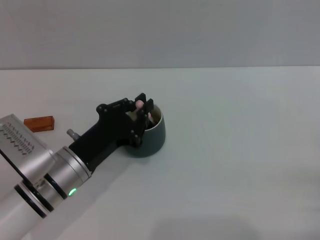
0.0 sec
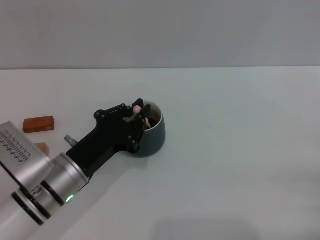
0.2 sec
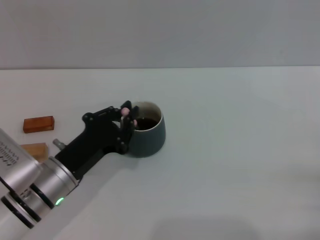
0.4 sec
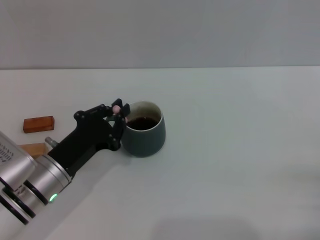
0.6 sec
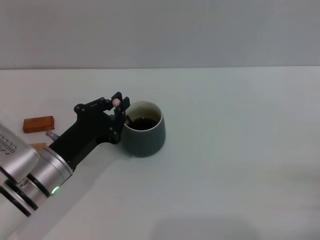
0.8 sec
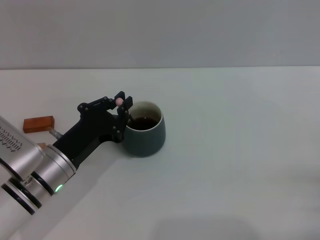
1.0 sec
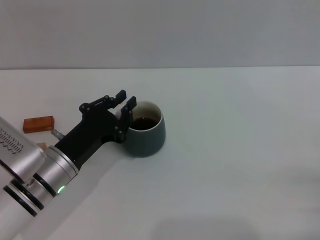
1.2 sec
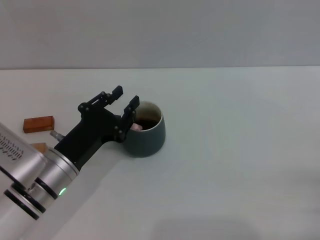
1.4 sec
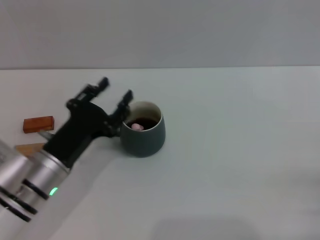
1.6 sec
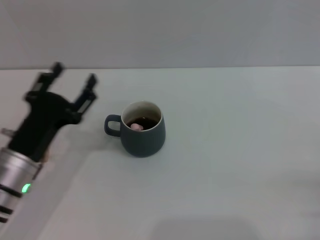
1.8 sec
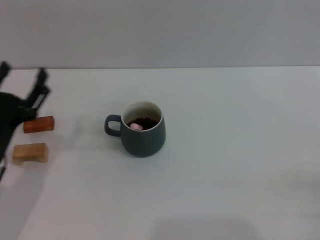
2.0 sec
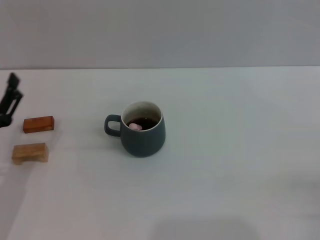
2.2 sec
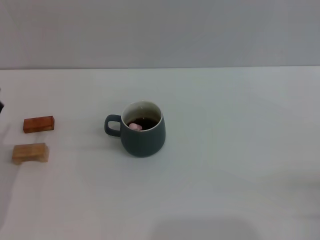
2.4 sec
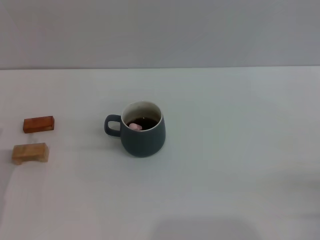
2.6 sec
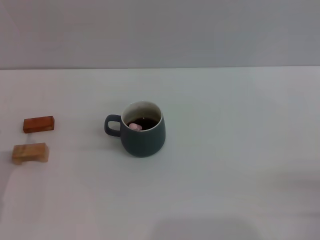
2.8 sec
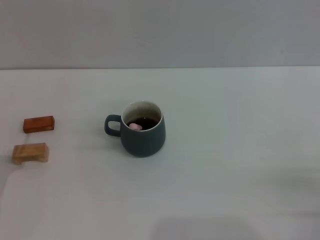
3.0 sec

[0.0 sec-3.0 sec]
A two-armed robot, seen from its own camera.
Task of the whole recording: Move the grey cup to the center, lift the pink spoon, stir it three times in the cup, and put the spoon into the cup.
0.0 sec to 1.6 sec: The grippers make only small movements.
1.6 sec to 3.0 sec: The left gripper travels to the left and backward by approximately 15 cm, and opens its fingers.

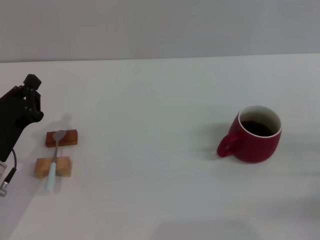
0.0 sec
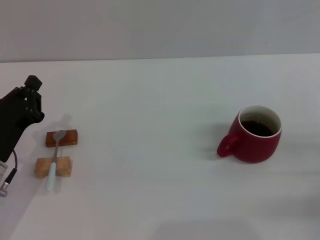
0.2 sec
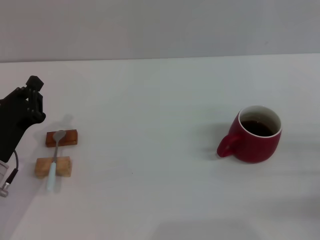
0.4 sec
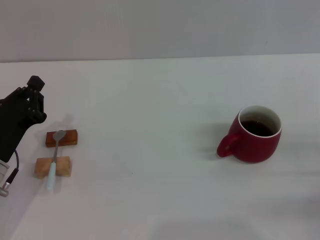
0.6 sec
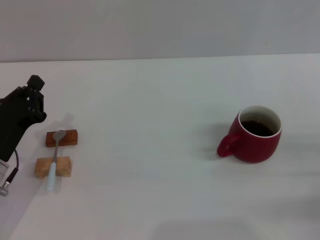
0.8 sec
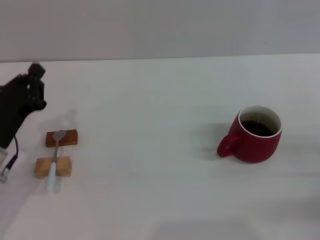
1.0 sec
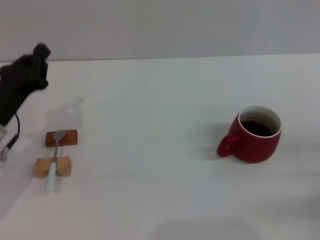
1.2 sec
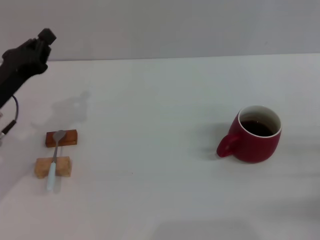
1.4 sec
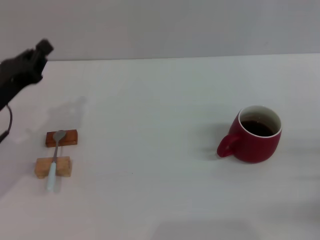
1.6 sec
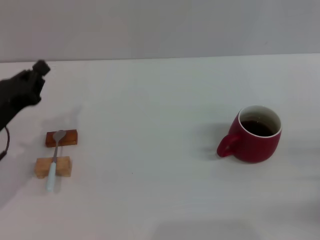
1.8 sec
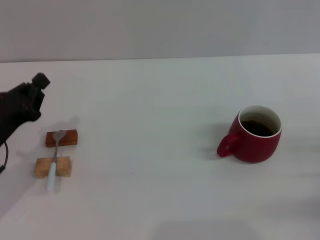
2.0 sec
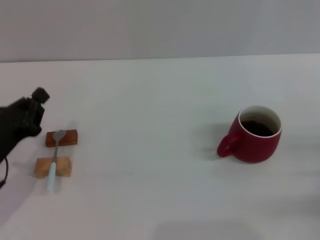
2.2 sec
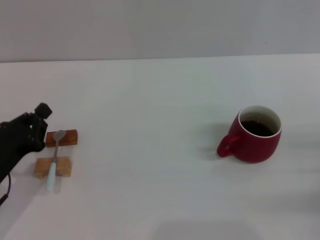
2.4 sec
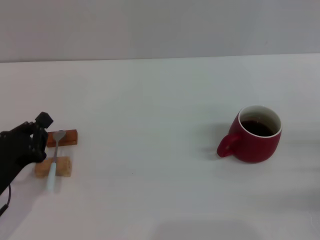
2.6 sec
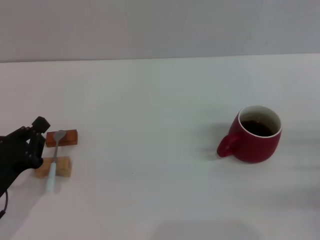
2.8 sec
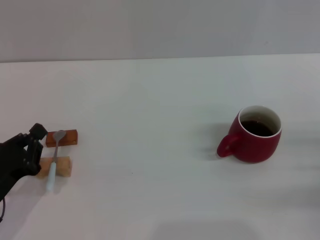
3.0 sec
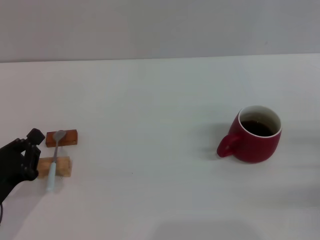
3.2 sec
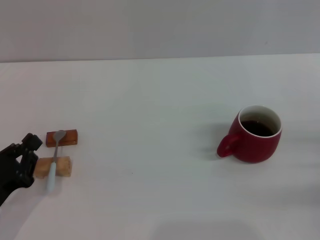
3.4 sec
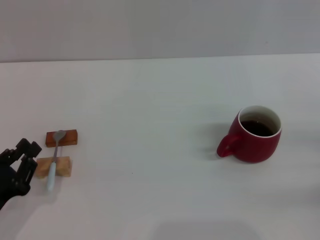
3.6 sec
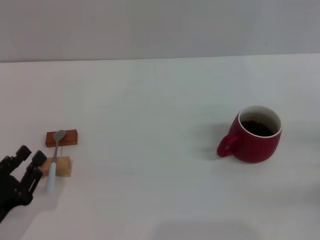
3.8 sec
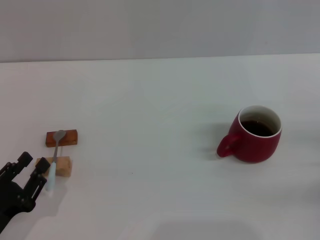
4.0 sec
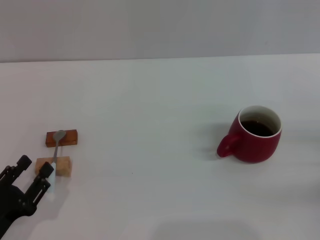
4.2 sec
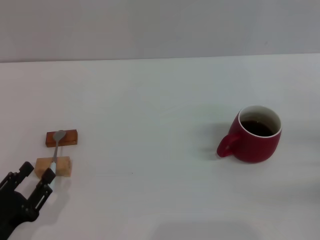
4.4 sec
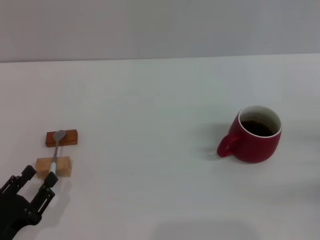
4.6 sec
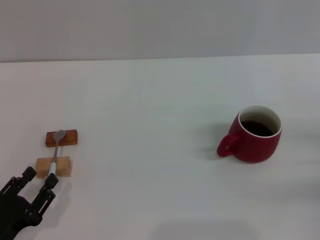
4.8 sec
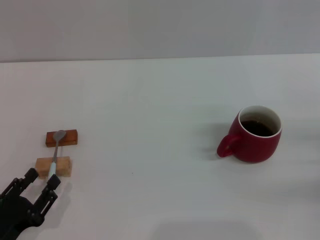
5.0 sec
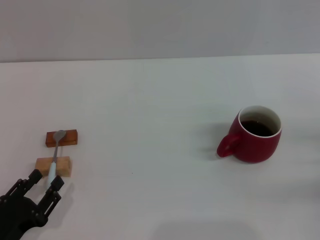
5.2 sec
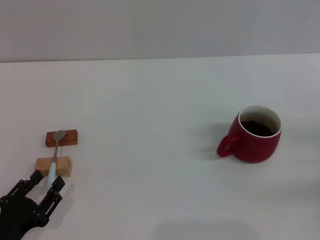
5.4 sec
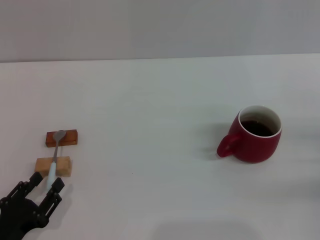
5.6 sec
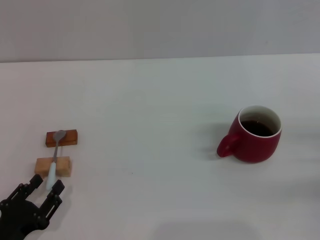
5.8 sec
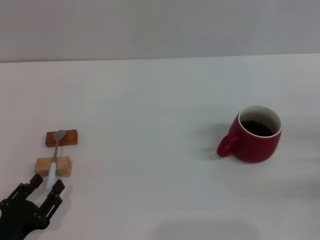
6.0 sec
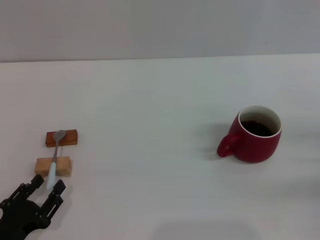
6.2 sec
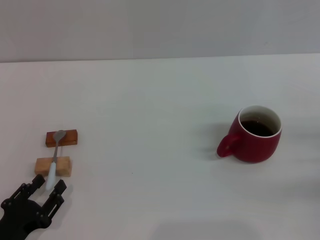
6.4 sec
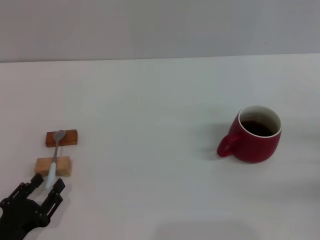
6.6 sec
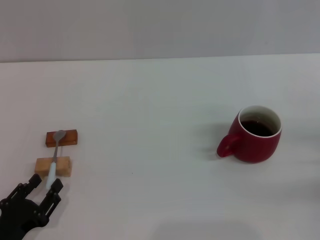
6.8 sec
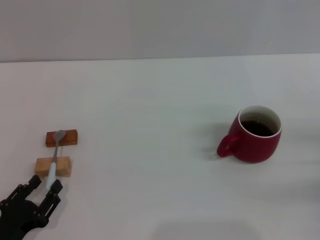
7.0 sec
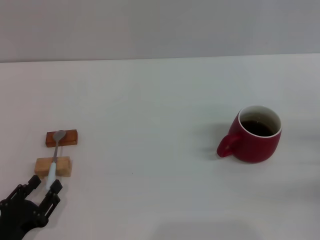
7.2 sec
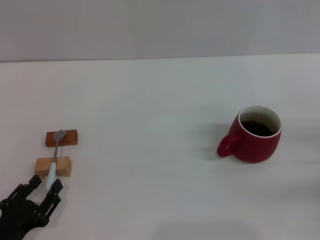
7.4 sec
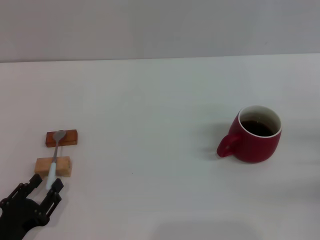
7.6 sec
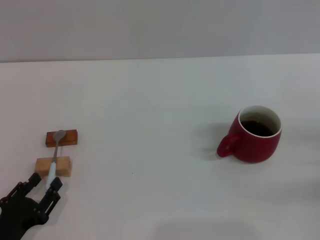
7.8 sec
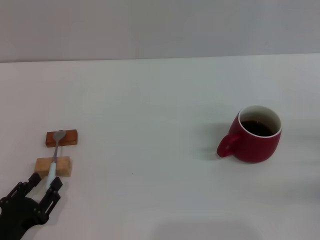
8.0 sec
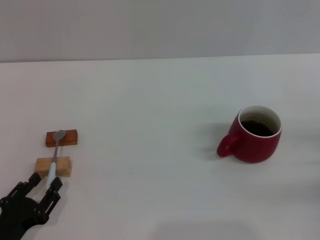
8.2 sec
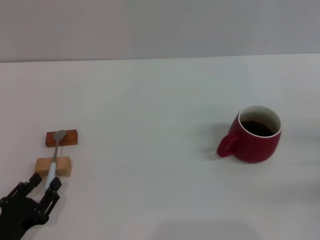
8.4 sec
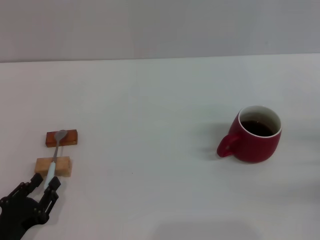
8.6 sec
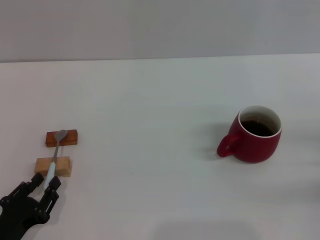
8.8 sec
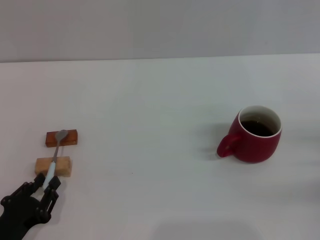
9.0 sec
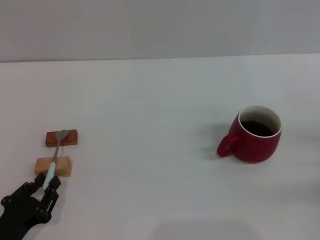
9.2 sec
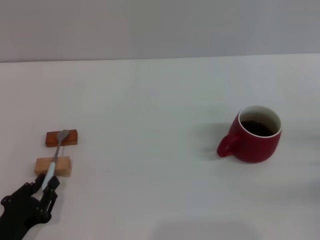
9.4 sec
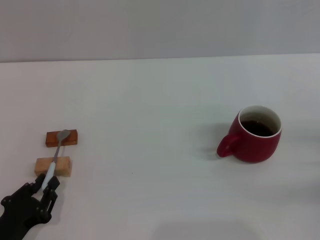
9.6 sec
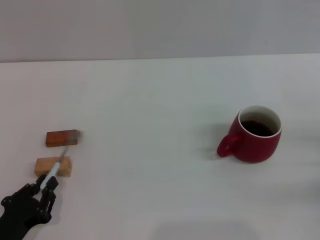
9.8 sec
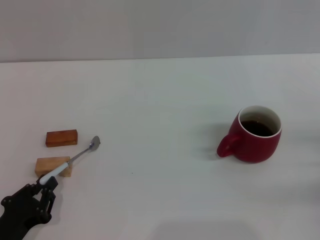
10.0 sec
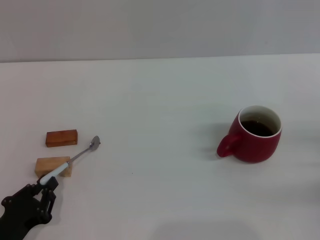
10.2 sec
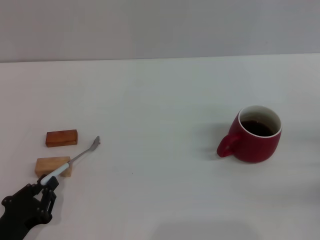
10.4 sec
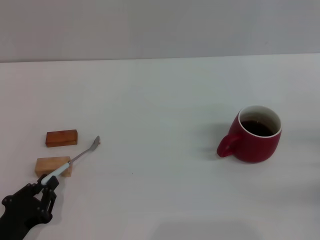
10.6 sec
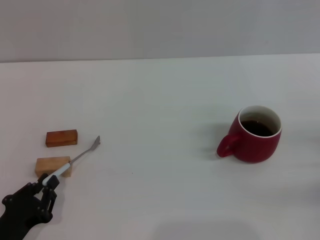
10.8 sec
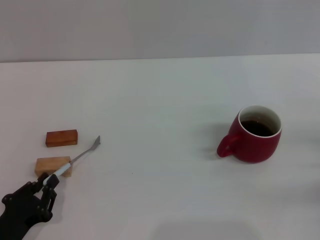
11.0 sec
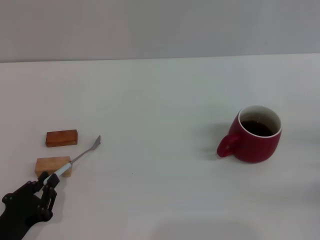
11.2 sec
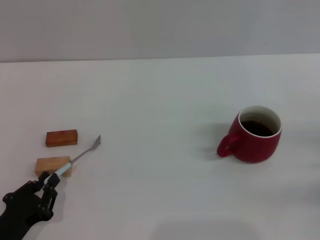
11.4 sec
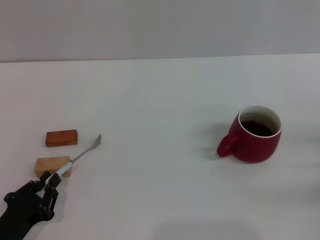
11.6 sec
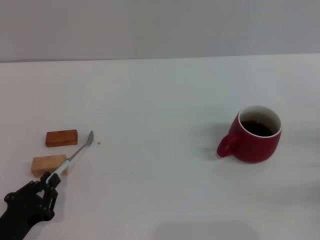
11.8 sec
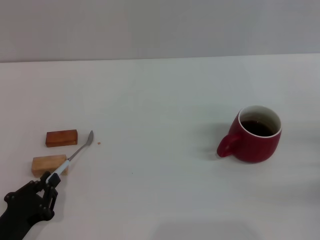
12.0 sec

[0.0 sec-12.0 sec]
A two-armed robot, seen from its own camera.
Task of the whole recording: Move the red cup to the center, lift the blue spoon, stir it three times in the cup, and put the spoon into the cup.
0.0 sec to 1.6 sec: The left gripper heads upward and forward, covering roughly 5 cm.
1.6 sec to 3.0 sec: The left gripper shifts some 15 cm backward and downward.
3.0 sec to 4.4 sec: The left gripper shifts some 5 cm backward, and opens its fingers.
4.4 sec to 6.0 sec: The grippers stay close to where they were, moving slightly.
6.0 sec to 9.0 sec: Both grippers stay about where they are.
9.0 sec to 10.4 sec: The left gripper closes its fingers.
10.4 sec to 12.0 sec: Both grippers stay put.

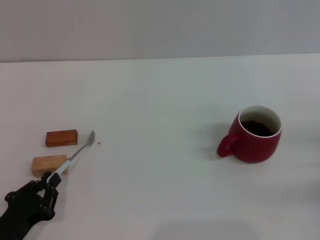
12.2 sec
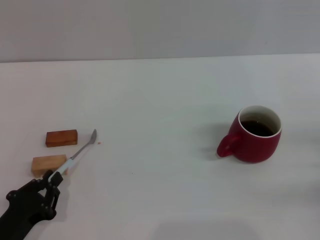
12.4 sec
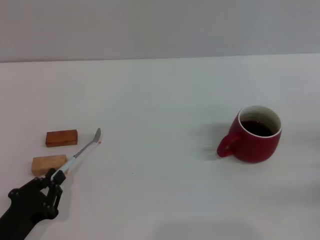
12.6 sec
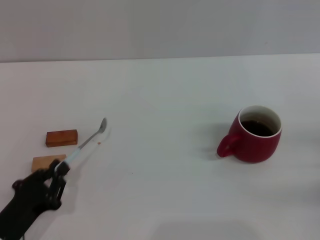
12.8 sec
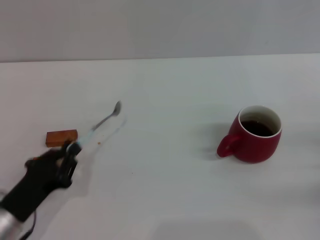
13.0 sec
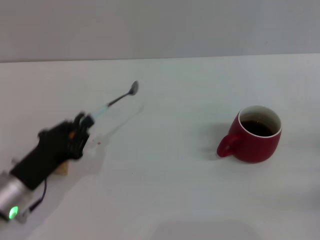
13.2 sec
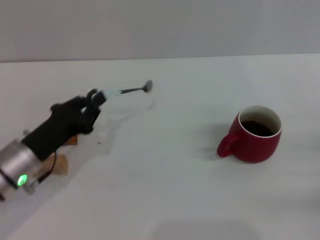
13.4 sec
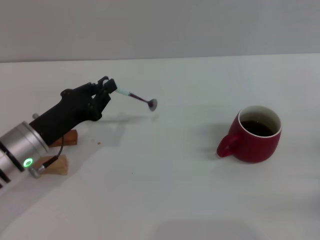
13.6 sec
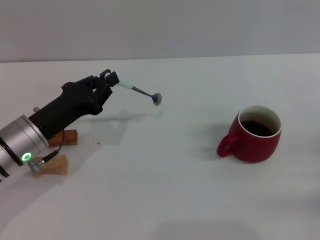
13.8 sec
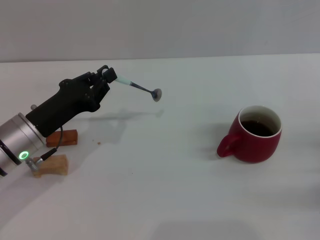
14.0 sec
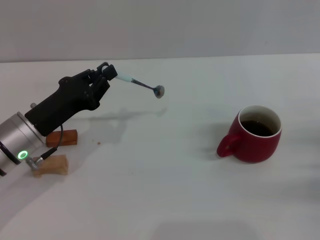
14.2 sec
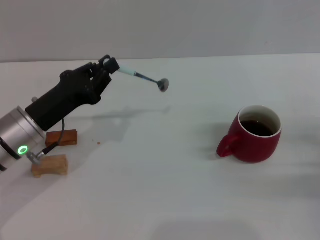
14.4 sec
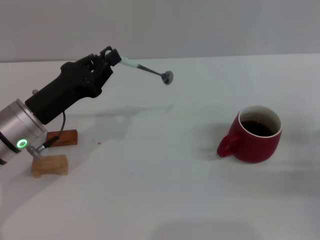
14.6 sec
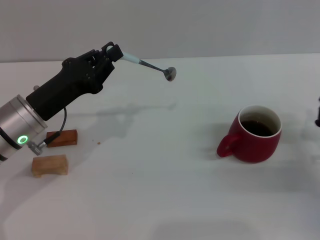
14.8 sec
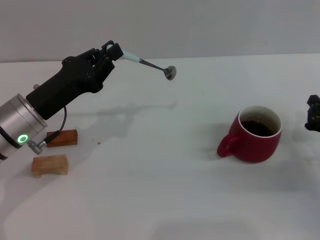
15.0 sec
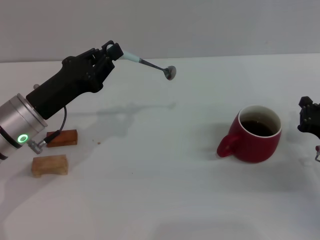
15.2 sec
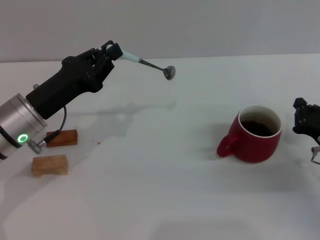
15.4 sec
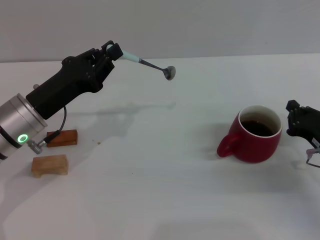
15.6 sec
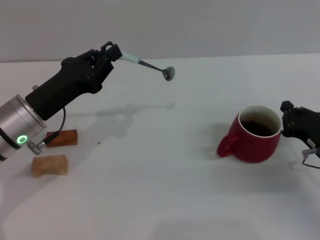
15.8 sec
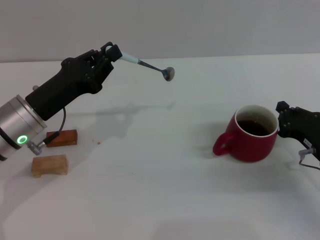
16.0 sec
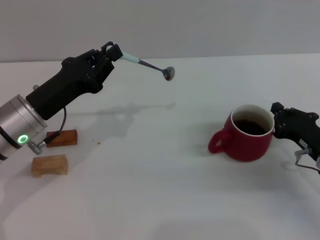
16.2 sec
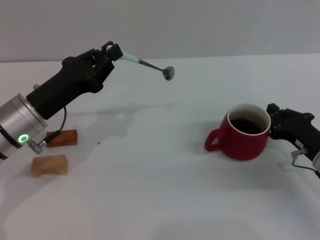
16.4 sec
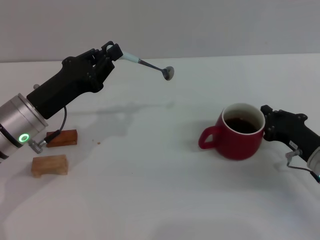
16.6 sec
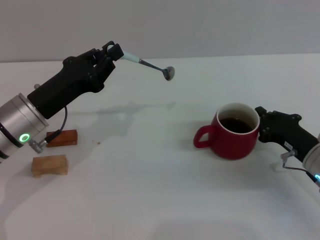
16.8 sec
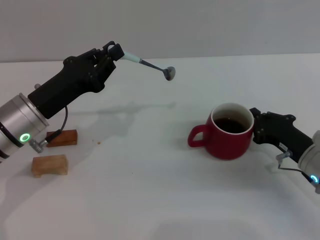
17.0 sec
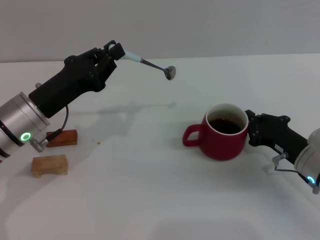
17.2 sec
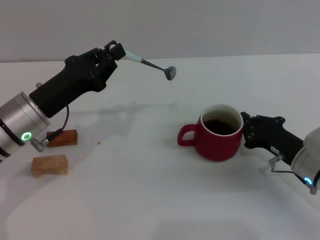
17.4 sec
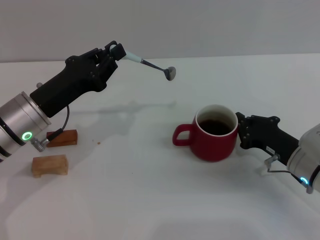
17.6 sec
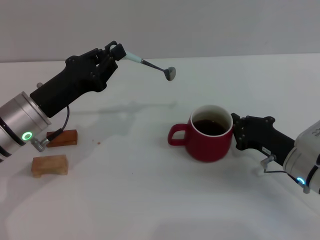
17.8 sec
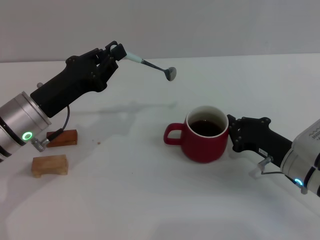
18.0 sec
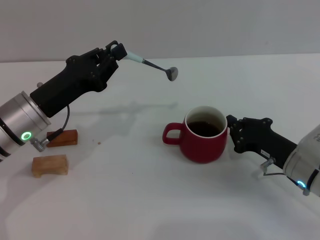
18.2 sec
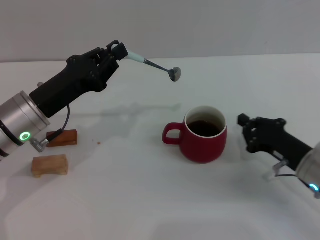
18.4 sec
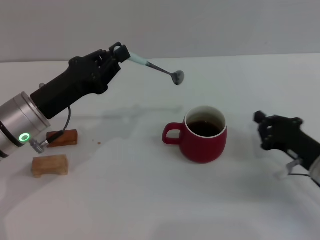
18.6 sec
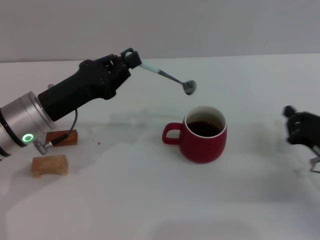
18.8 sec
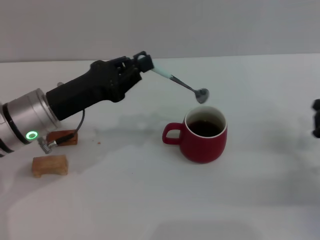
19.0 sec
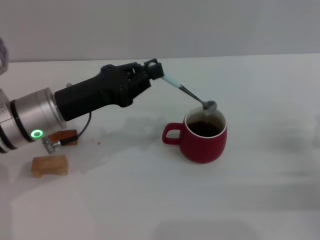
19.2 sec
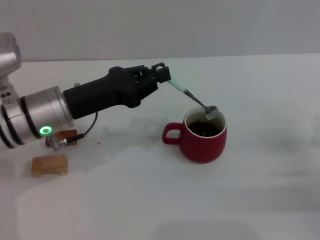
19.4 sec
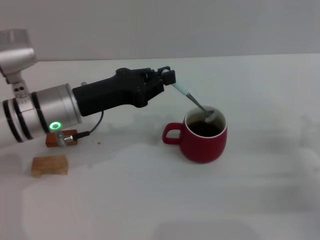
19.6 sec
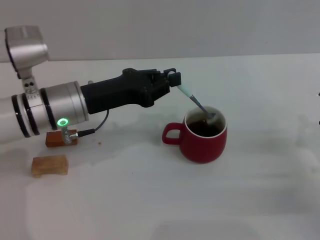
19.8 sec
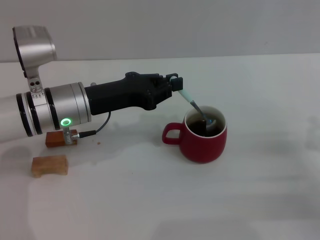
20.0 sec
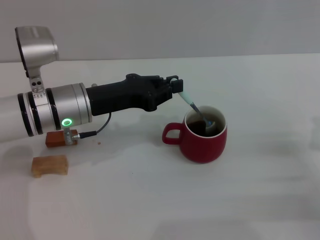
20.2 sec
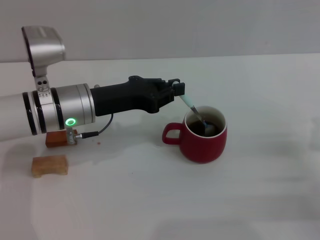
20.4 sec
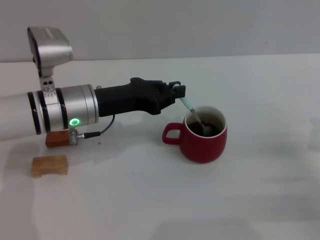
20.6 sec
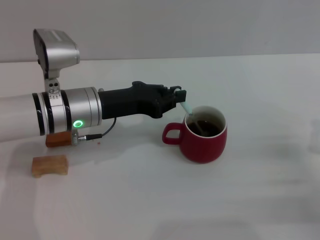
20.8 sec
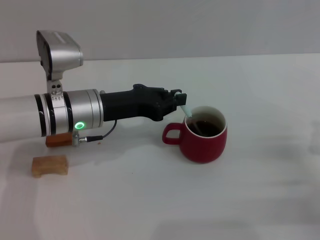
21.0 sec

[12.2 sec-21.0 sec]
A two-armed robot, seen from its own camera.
Task of the whole recording: Move the red cup to the center, lift the blue spoon, stir it three times in the cup, and put the spoon into the cup.
Step, 13.6 sec to 18.4 sec: Move the cup with coffee to the center of view with the right gripper.
12.2 sec to 13.6 sec: The left gripper heads forward and upward, covering roughly 15 cm.
13.6 sec to 15.2 sec: The right gripper heads to the left, covering approximately 5 cm.
15.2 sec to 16.6 sec: The grippers make only small movements.
16.6 sec to 18.0 sec: The grippers make only small movements.
18.0 sec to 19.6 sec: The right gripper heads to the right, covering some 10 cm.
19.6 sec to 21.0 sec: There are only small adjustments of the grippers.
